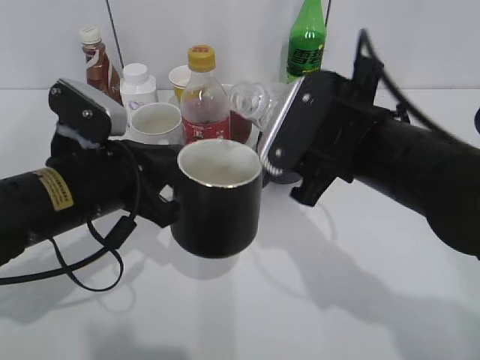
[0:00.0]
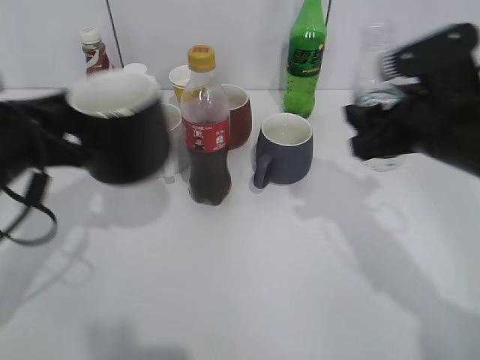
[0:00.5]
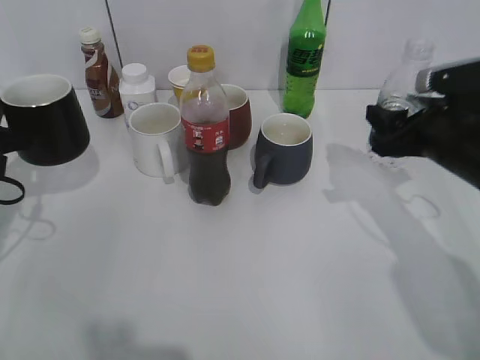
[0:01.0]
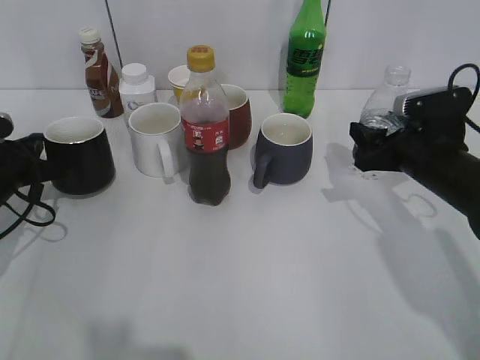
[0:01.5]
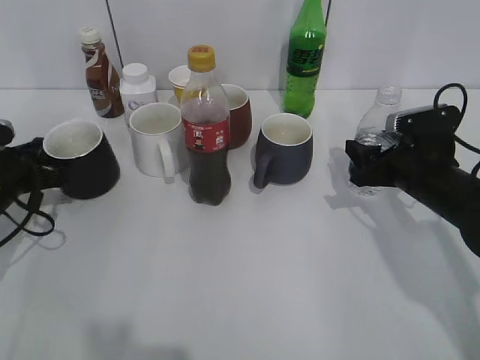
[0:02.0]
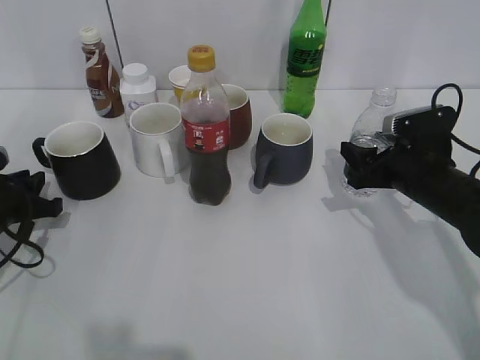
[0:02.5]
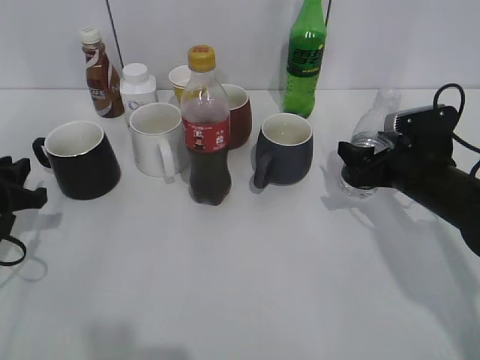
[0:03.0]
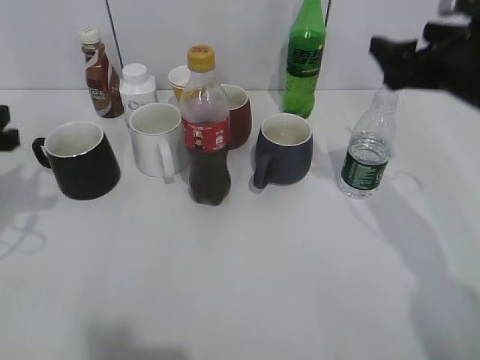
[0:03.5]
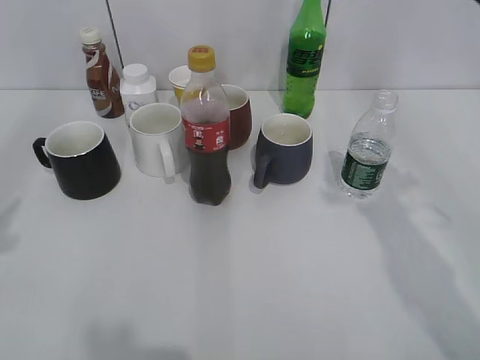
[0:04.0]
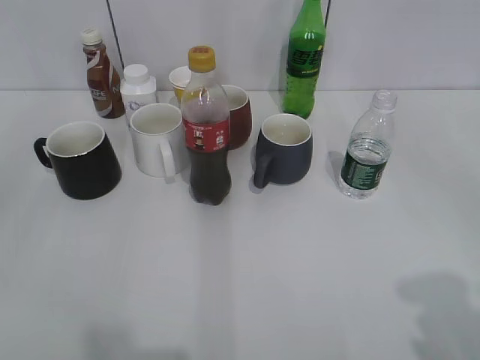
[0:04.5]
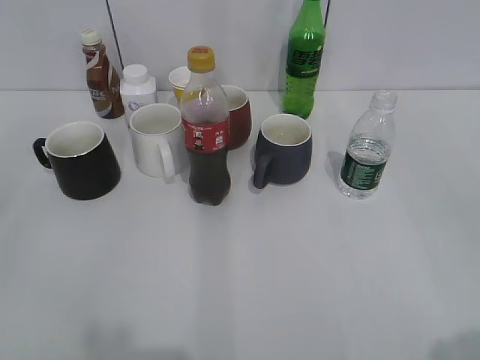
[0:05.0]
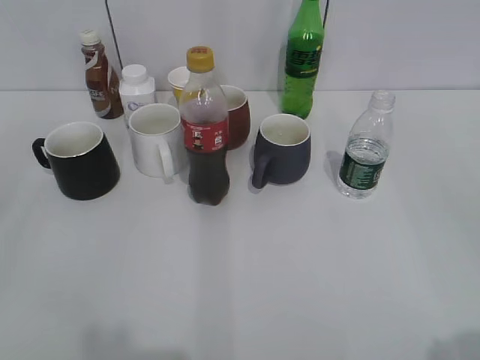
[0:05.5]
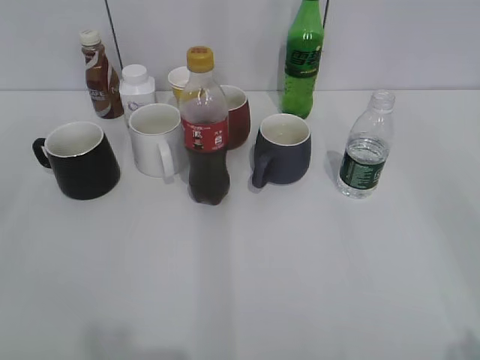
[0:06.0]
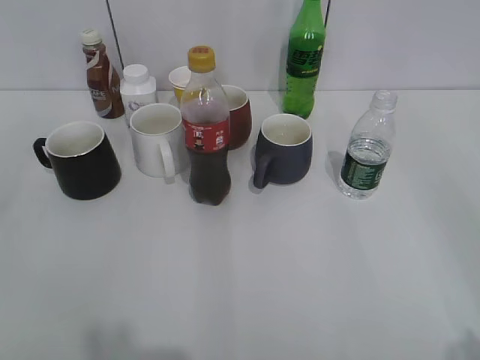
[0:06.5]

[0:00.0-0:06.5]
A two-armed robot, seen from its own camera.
Step, 0:00.5 to 0:03.0: Place the water bottle on the table with right gripper.
0:00.0 to 0:02.0: The left gripper shifts about 20 cm to the left, forward and downward; the right gripper goes roughly 20 cm downward, to the right and forward.
0:02.0 to 0:04.5: Both grippers move backward and upward, approximately 35 cm. The right gripper opens its fingers, while the left gripper opens up.
0:04.5 to 0:06.5: The right gripper shifts some 5 cm backward.
